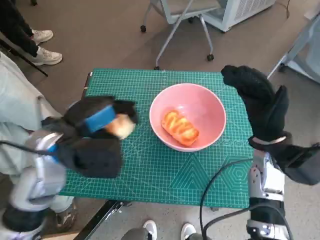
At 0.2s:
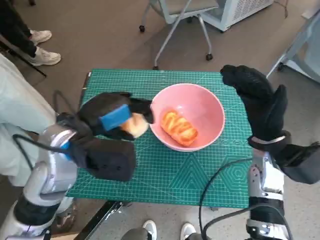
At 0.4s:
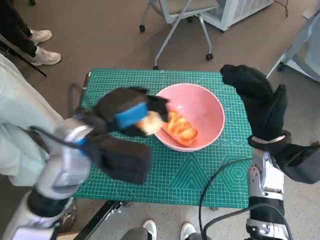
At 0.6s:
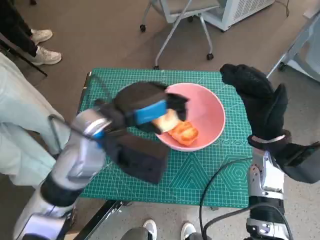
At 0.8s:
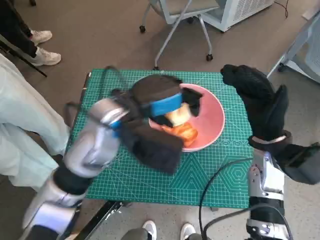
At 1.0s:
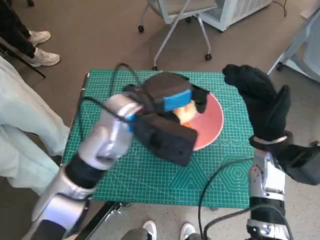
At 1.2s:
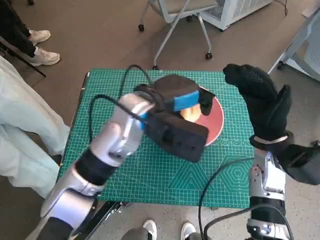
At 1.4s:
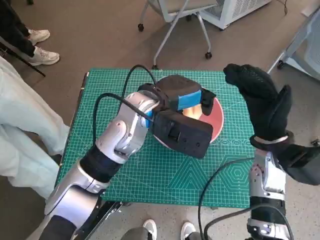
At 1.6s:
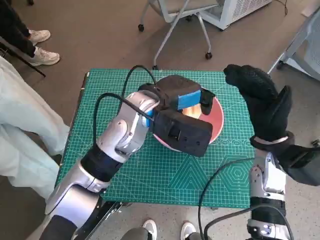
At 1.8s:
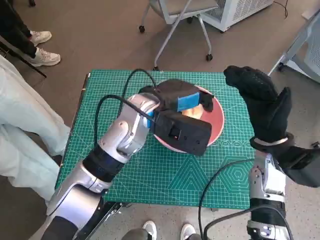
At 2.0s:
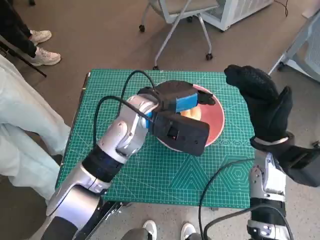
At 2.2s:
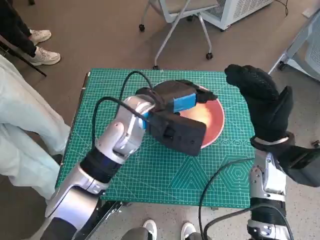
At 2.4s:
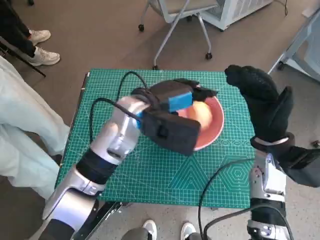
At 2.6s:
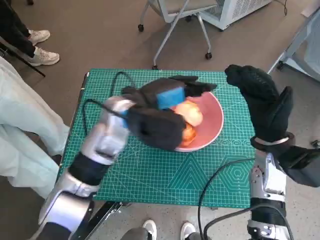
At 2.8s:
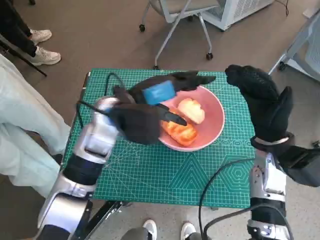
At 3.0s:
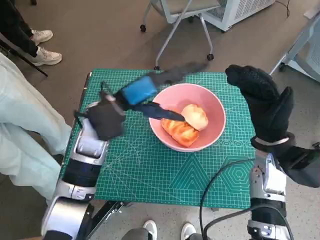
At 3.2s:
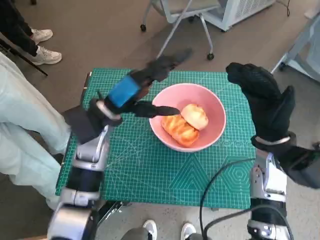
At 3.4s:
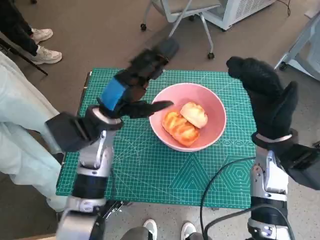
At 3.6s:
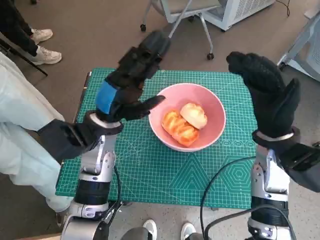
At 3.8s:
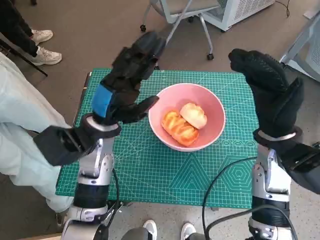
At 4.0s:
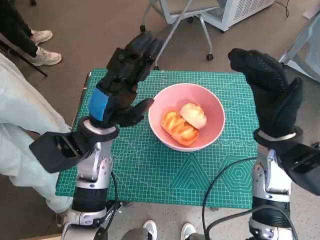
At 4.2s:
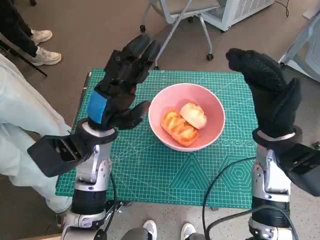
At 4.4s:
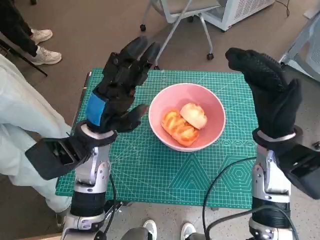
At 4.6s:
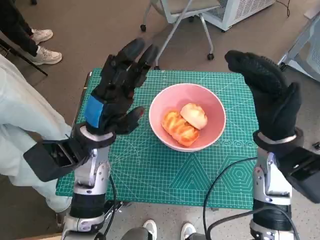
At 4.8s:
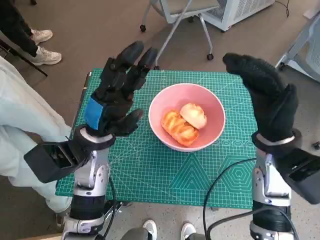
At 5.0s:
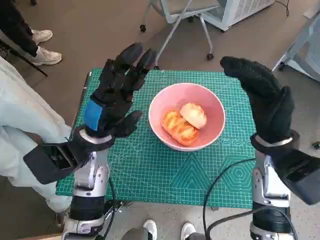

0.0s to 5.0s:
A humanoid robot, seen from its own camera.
Task of the whole recording: Push the bowl into the center of the table and put the bread into the bowl.
Step, 0.0s to 2.6s: Place the round bread in pink bowl with left hand.
0.0s to 1.6s: The left hand moves to the right and forward, approximately 15 cm.
1.6s to 3.4s: The left hand moves to the left, approximately 10 cm.

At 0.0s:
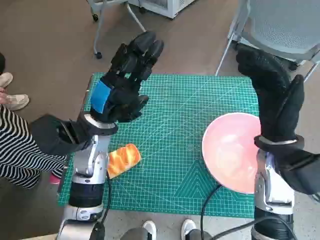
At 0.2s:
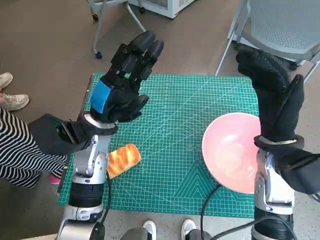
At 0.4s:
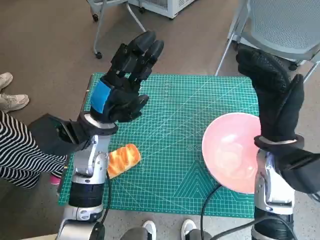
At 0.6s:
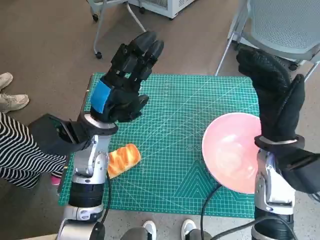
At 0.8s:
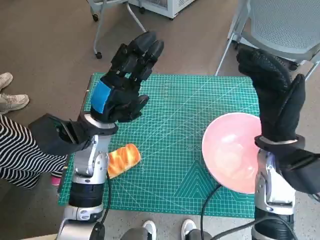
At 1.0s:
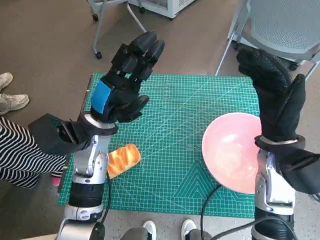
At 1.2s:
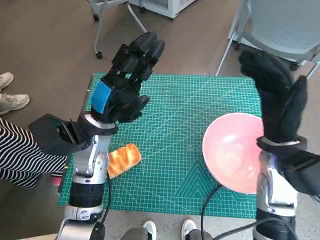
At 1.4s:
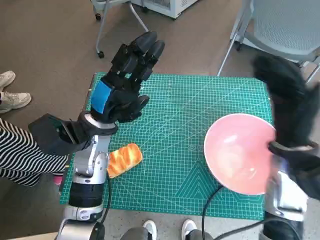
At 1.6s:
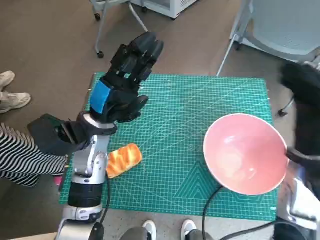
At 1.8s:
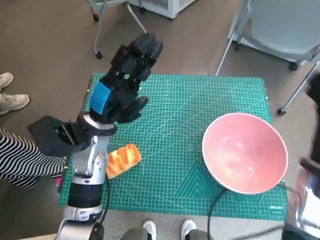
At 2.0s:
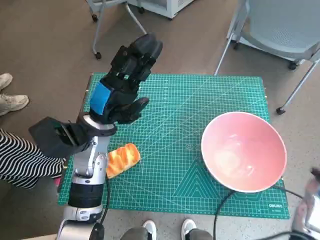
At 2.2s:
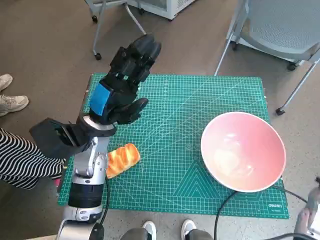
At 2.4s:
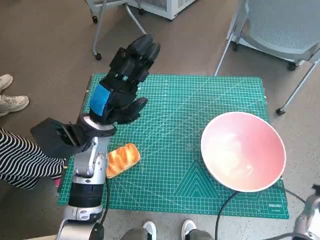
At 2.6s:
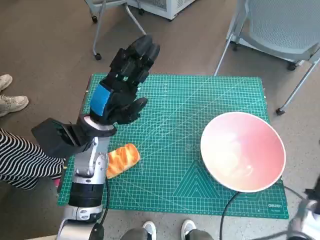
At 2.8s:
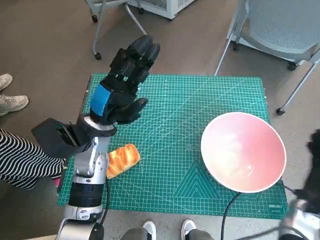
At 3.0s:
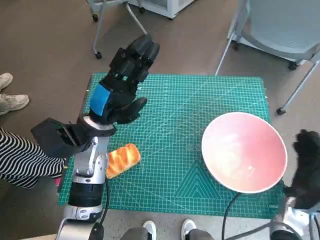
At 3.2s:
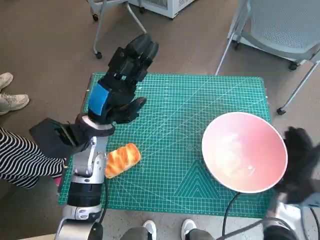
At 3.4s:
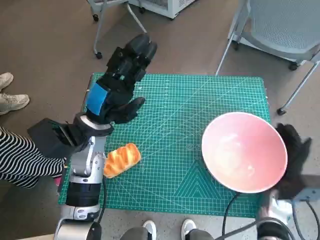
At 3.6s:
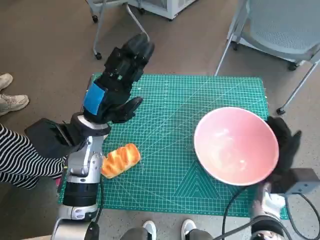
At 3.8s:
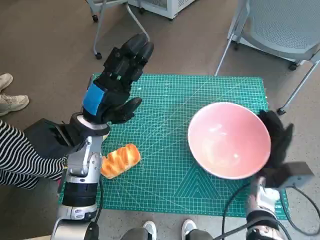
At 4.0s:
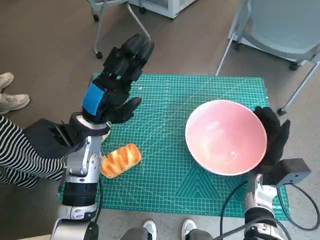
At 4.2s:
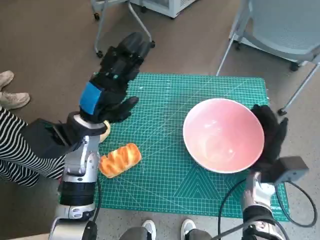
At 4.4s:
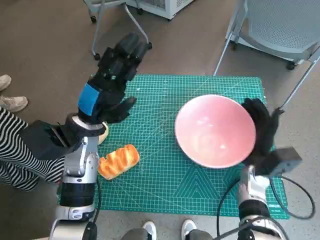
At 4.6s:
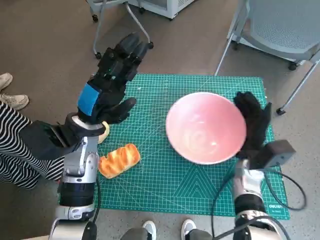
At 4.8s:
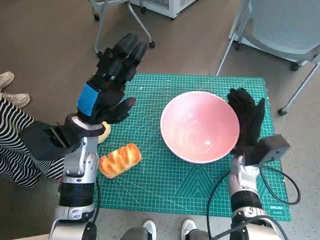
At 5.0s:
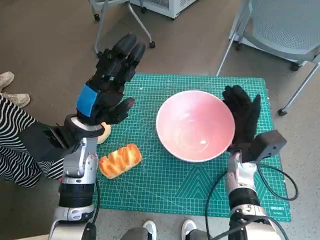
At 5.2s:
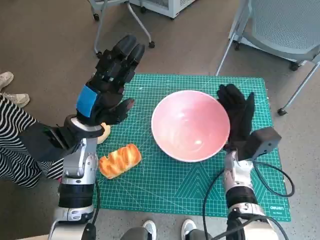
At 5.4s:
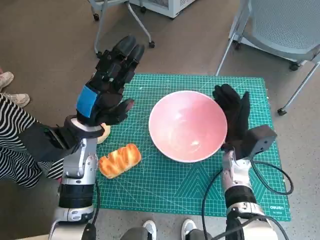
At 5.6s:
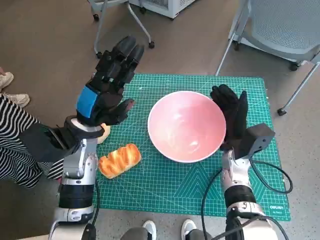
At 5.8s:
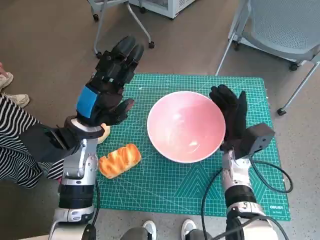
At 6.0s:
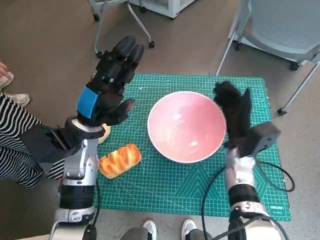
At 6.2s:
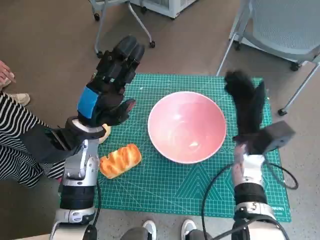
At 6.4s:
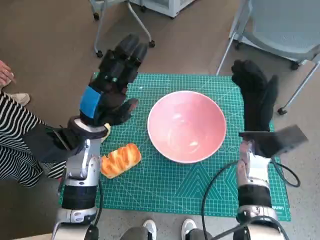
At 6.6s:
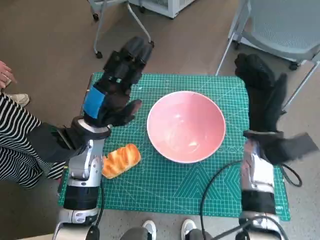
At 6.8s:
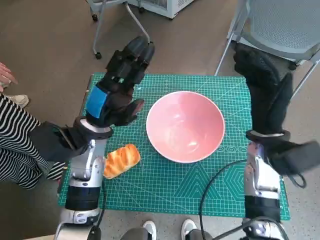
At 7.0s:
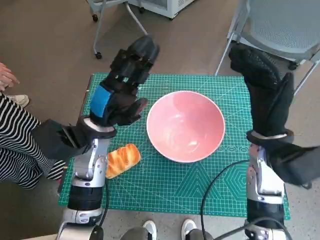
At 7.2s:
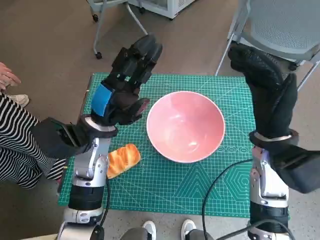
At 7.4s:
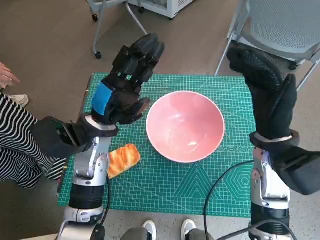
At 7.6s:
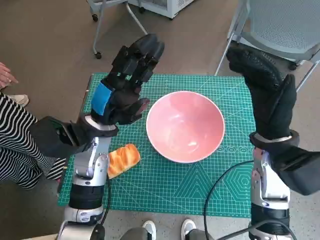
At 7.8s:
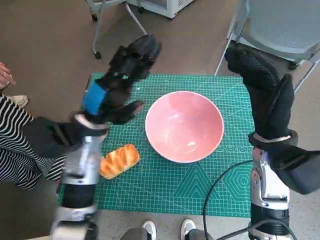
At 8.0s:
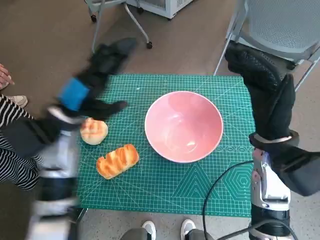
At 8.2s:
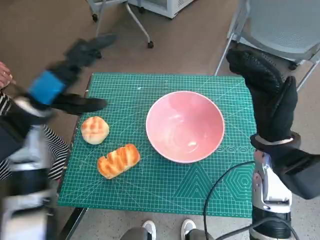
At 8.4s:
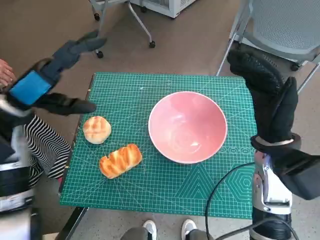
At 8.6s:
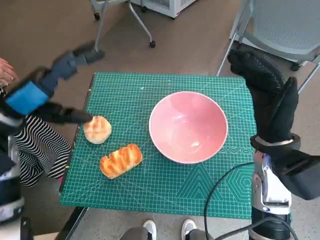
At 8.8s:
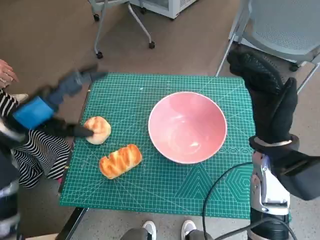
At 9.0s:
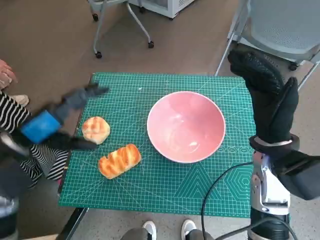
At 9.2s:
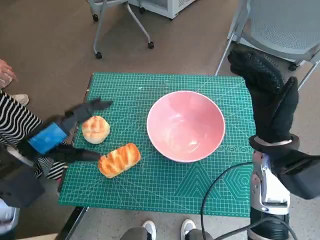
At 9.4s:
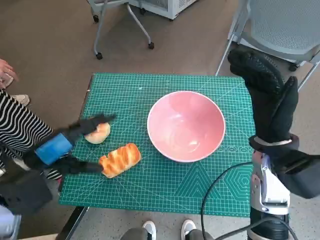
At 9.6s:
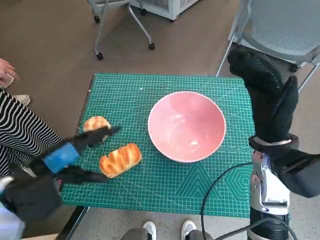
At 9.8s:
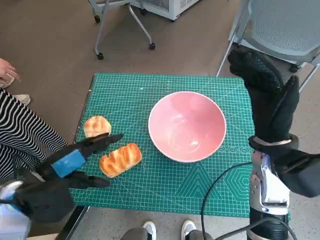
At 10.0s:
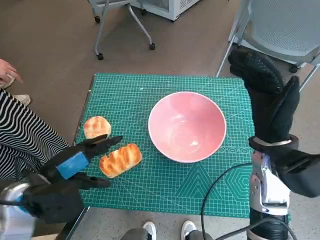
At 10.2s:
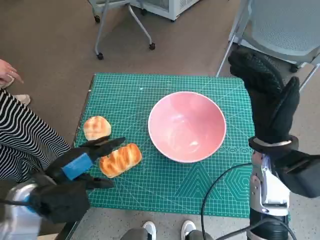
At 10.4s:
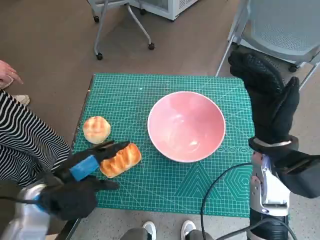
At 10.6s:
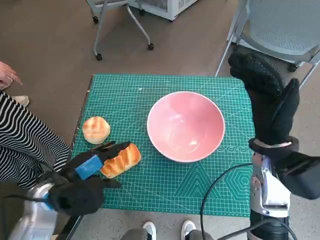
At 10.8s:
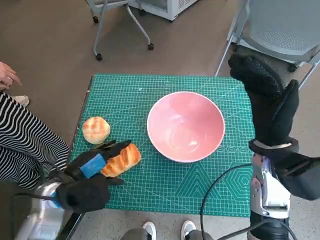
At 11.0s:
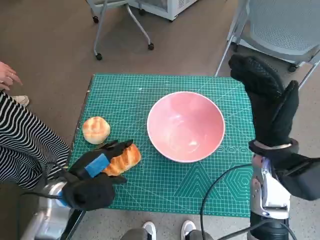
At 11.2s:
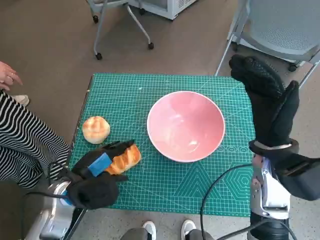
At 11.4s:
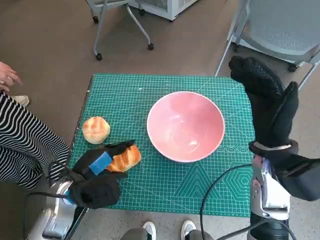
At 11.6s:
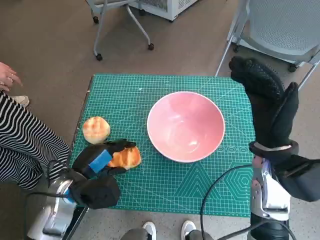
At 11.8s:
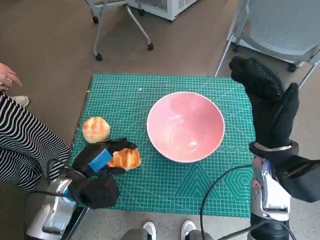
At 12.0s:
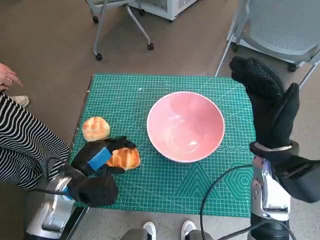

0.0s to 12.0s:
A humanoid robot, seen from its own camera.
Task of the whole recording: Push the bowl into the center of the table and put the bread into the bowl.
Step, 0.0s to 6.0s: Move the pink bowl to the center of table with right hand.
Step, 6.2s to 11.6s: Grasp the long bread with left hand.
1.6s to 3.0s: The right hand shifts approximately 15 cm downward.
3.0s to 4.4s: The right hand heads to the left and forward, covering some 10 cm.
4.4s to 6.0s: The right hand ends up some 5 cm from where it was.
6.0s to 7.6s: The right hand shifts some 10 cm upward.
7.6s to 9.0s: The left hand travels to the left and backward by roughly 15 cm.
9.0s to 10.4s: The left hand travels downward and backward by approximately 10 cm.
10.4s to 12.0s: The left hand shifts approximately 5 cm downward.

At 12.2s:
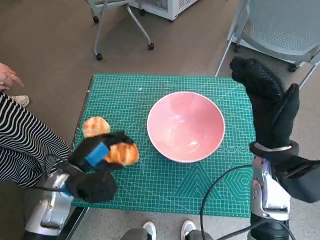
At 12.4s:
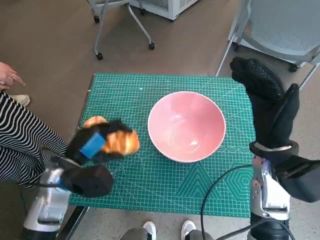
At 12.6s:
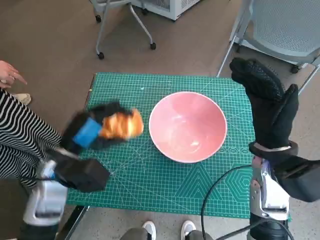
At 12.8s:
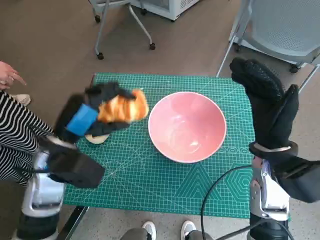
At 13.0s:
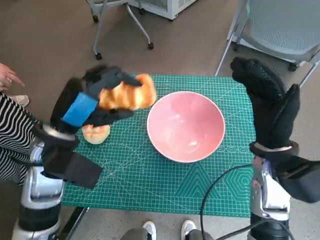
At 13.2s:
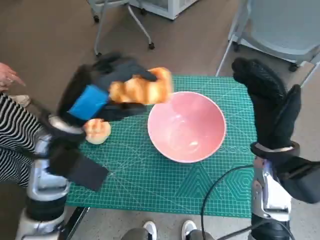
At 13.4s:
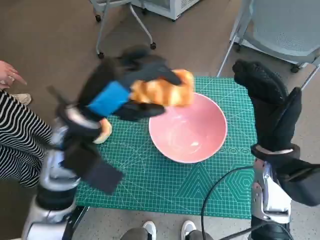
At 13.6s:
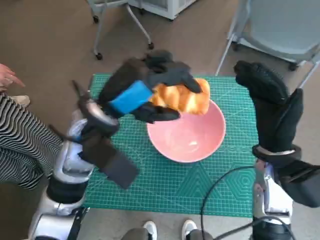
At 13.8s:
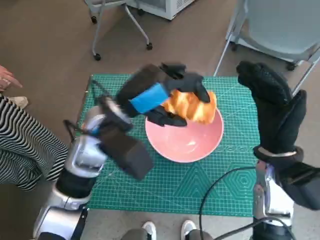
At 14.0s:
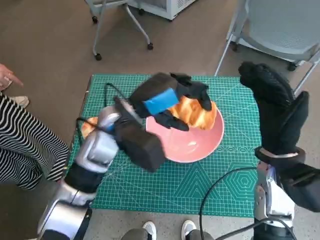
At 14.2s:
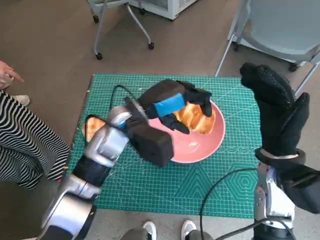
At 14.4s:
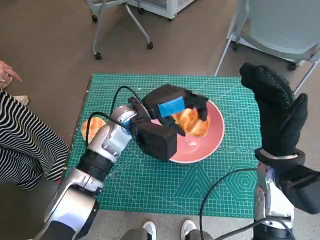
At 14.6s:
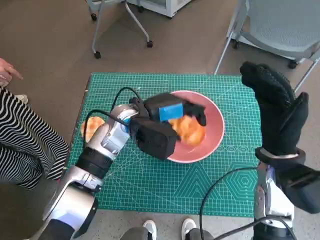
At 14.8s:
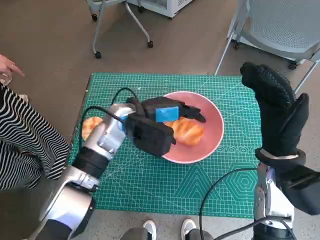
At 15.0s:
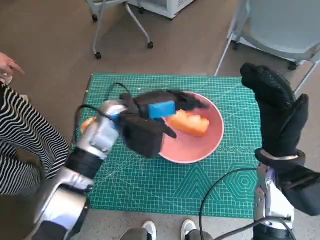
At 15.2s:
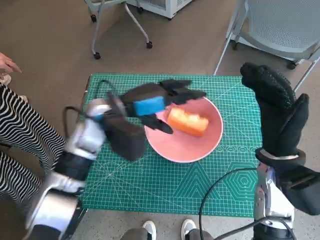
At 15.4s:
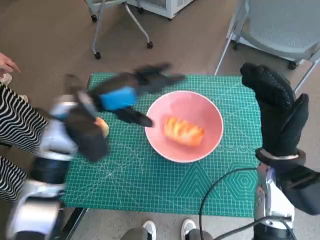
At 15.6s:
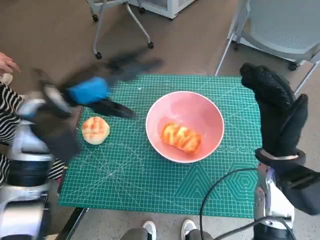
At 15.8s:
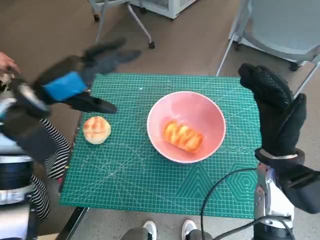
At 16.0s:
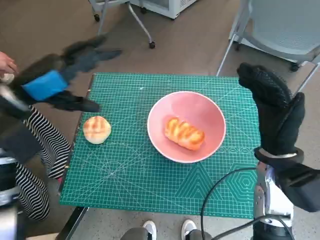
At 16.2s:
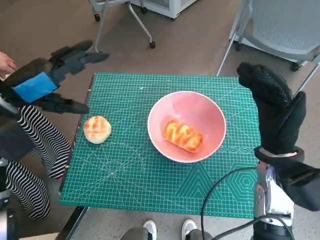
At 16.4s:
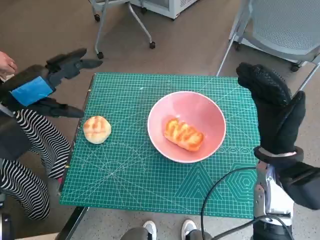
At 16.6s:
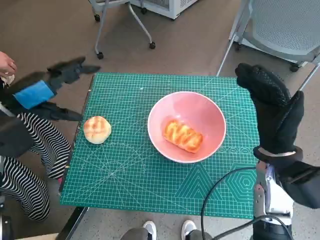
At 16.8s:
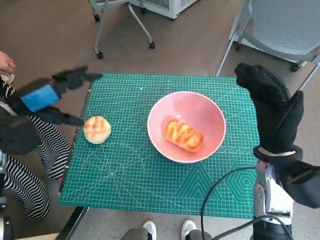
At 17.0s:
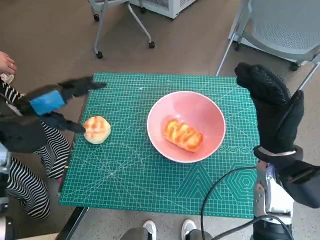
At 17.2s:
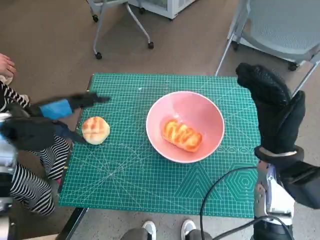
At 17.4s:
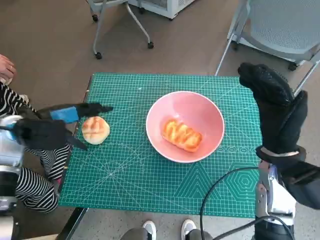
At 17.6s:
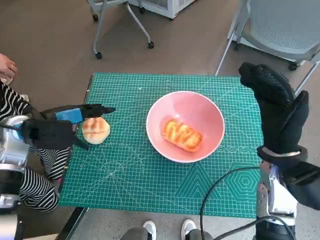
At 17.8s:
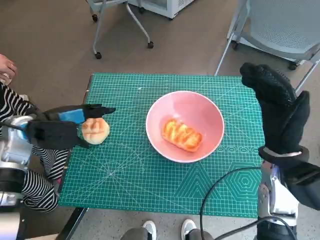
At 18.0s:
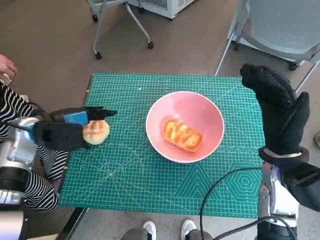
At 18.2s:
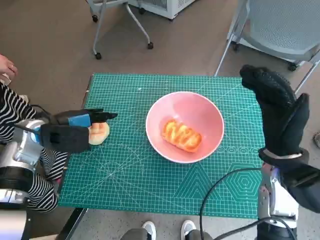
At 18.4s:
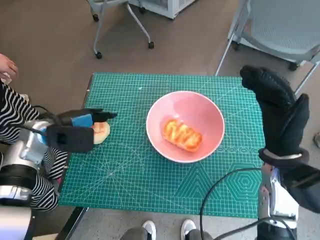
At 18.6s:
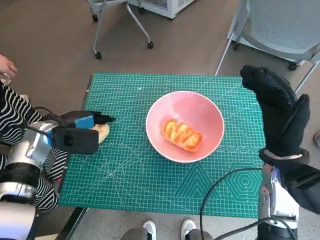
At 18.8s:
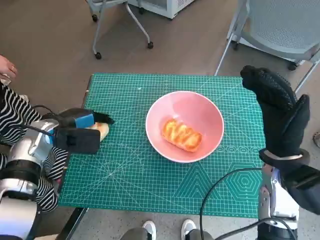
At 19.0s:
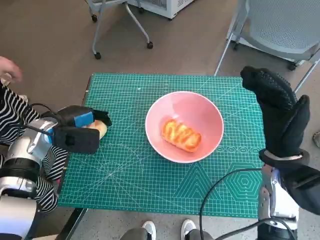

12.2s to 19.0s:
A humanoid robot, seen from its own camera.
Task of the whole recording: Push the bowl into the center of the table and put the bread into the bowl.
Step, 12.2s to 14.8s: Place the long bread in pink bowl with left hand.
Step, 15.0s to 18.8s: Grasp the round bread with left hand.
12.2s to 13.6s: The left hand shifts approximately 15 cm upward and to the right.
13.6s to 15.0s: The left hand is displaced forward and downward by approximately 10 cm.
15.0s to 16.2s: The left hand travels to the left and upward by approximately 20 cm.
16.2s to 17.6s: The left hand shifts roughly 10 cm downward.
17.6s to 19.0s: The left hand ends up approximately 5 cm from where it was.
